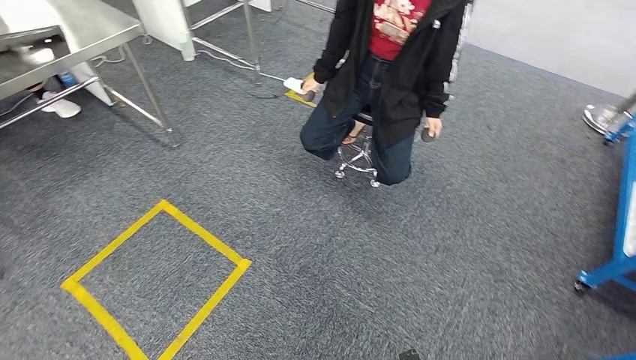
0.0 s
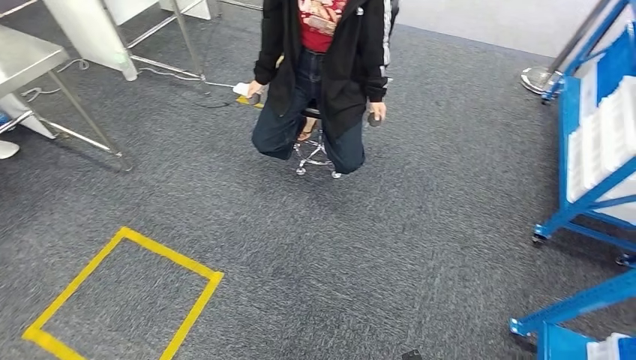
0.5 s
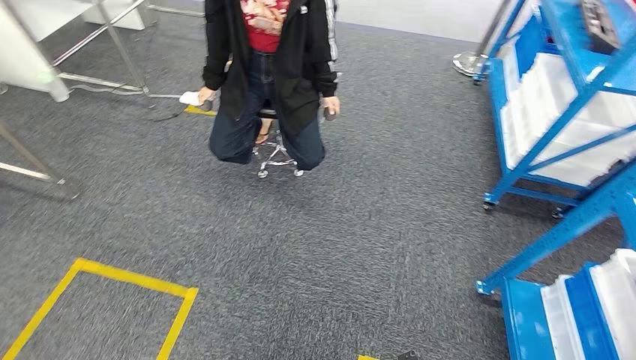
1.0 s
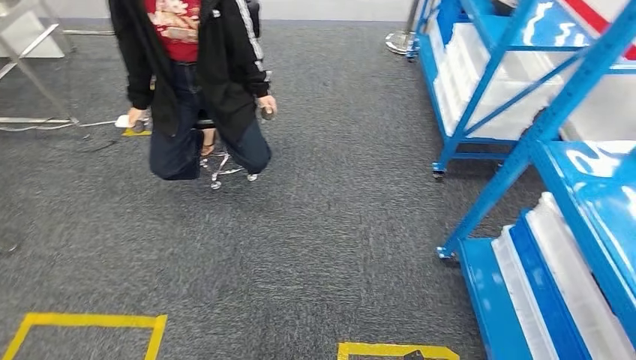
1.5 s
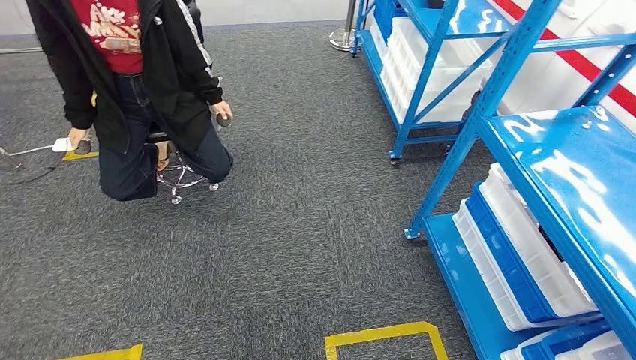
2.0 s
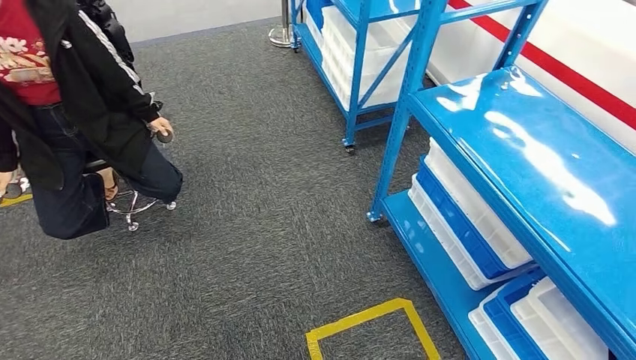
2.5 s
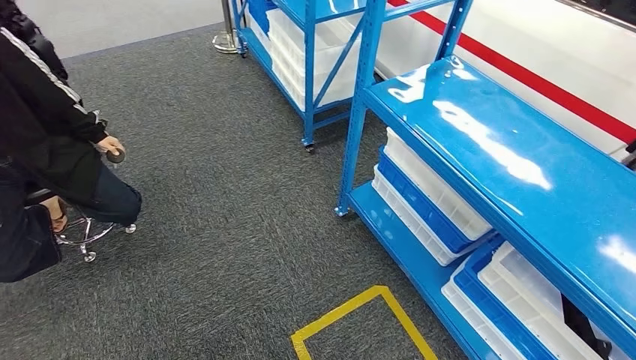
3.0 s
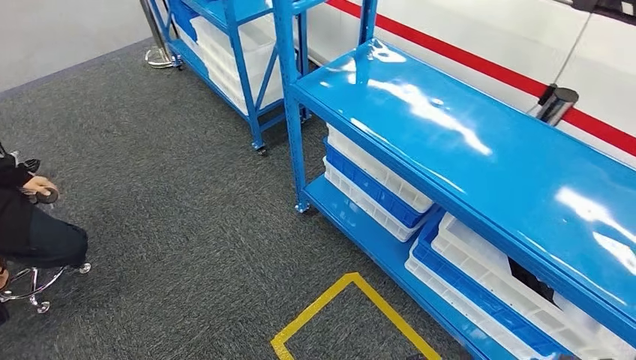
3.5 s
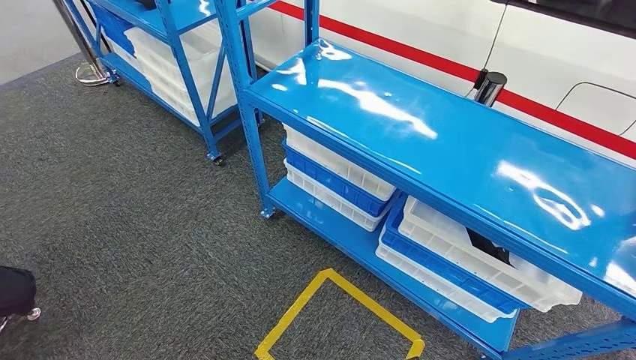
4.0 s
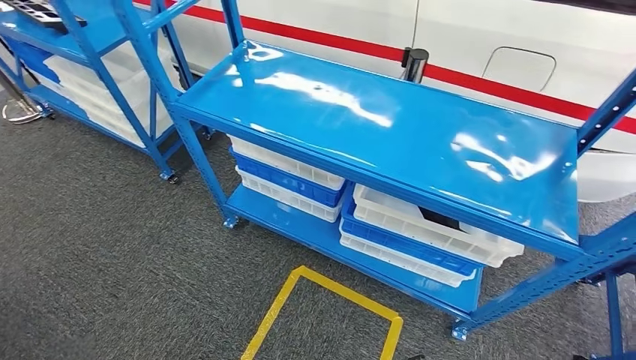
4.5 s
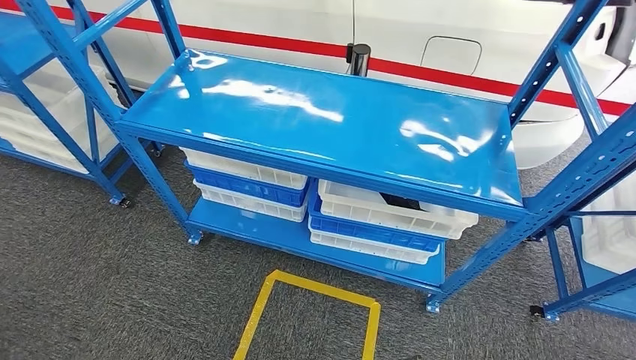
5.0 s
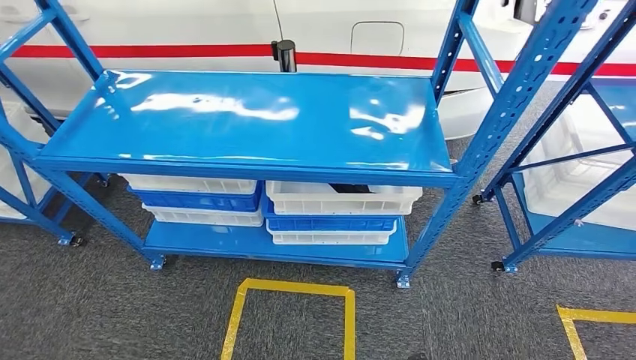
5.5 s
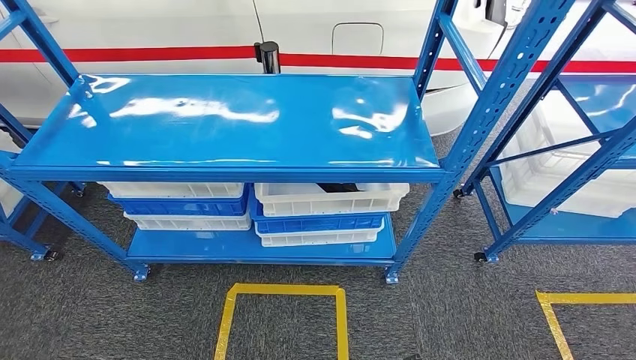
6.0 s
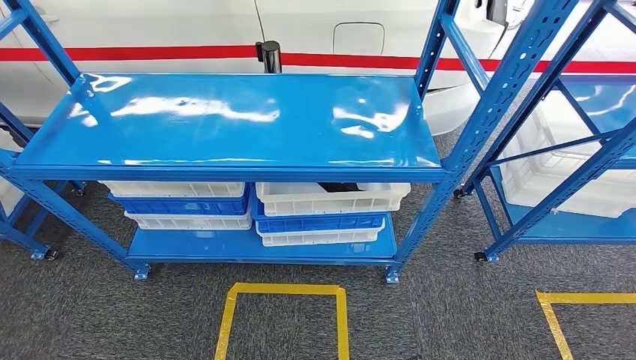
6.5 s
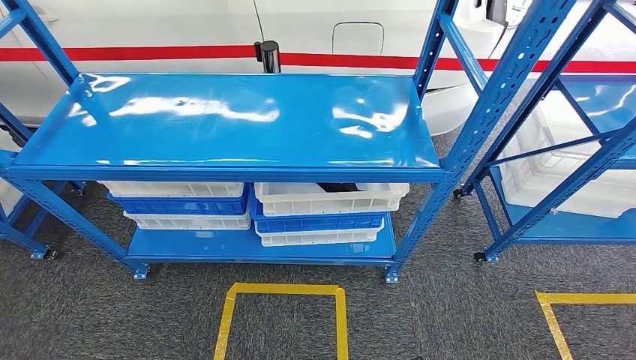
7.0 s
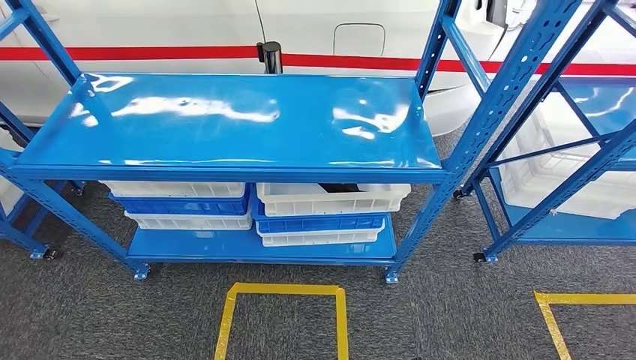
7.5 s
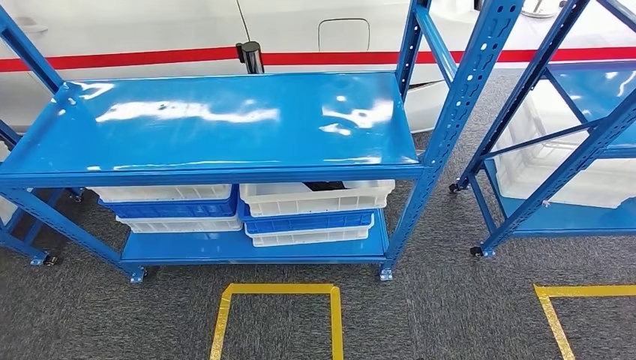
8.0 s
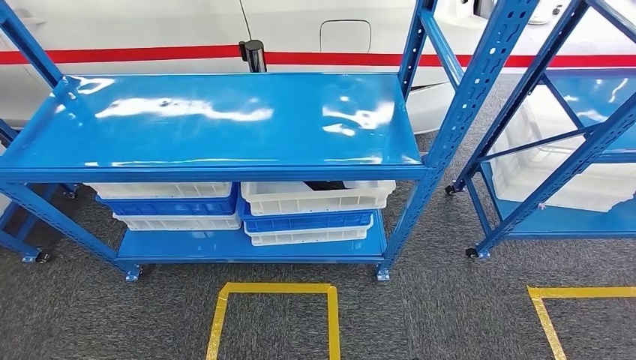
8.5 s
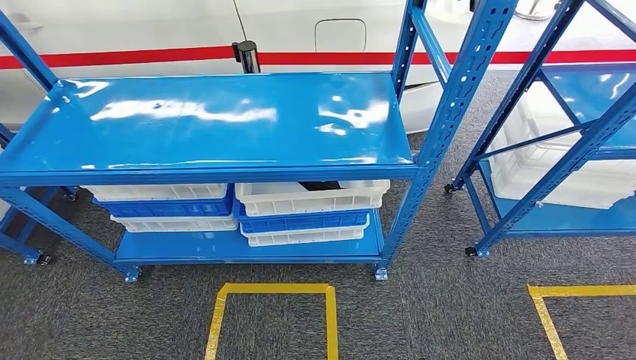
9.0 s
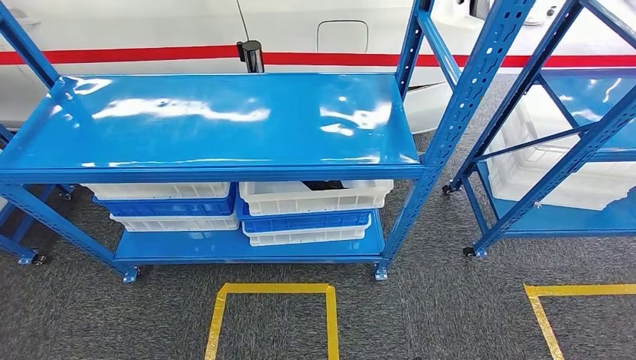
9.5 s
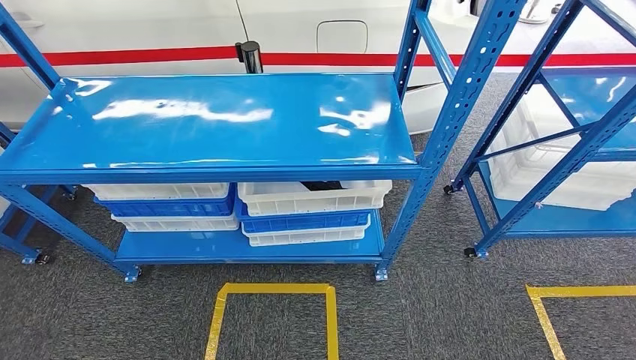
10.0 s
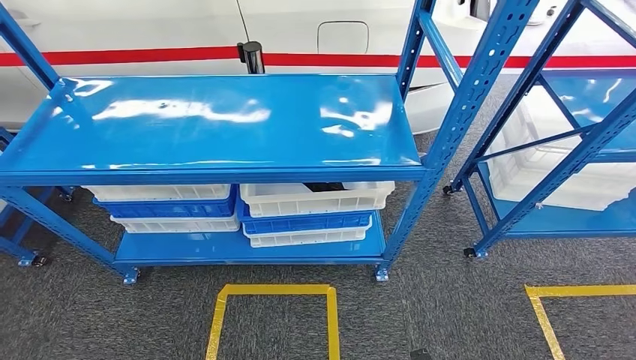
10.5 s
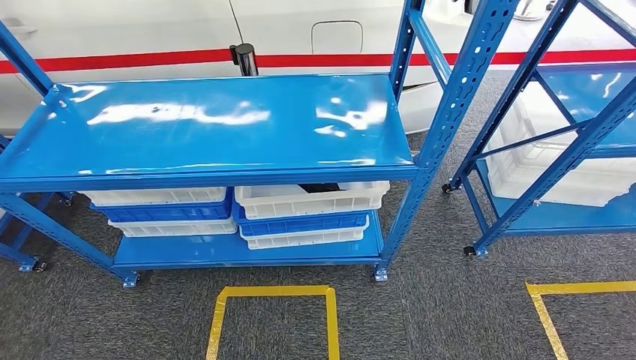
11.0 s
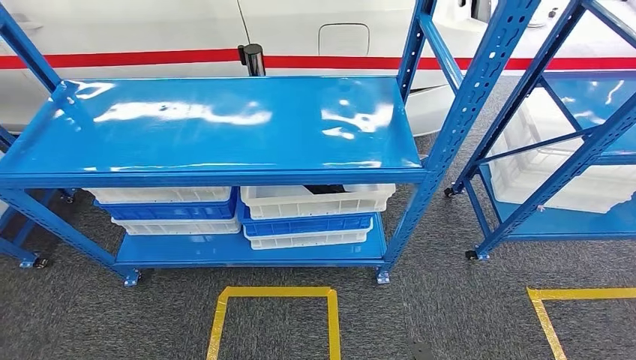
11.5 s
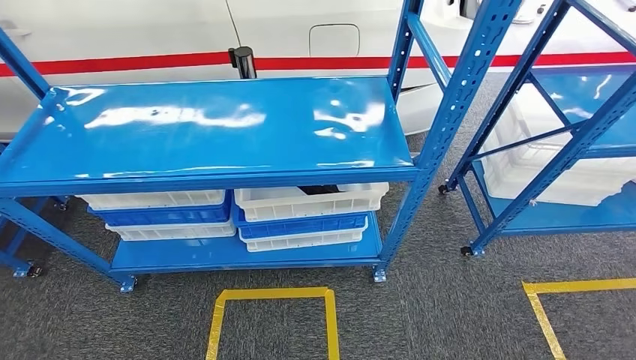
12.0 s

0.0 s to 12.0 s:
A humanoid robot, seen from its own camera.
8.0 to 10.0 s: Both hands stay about where they are.

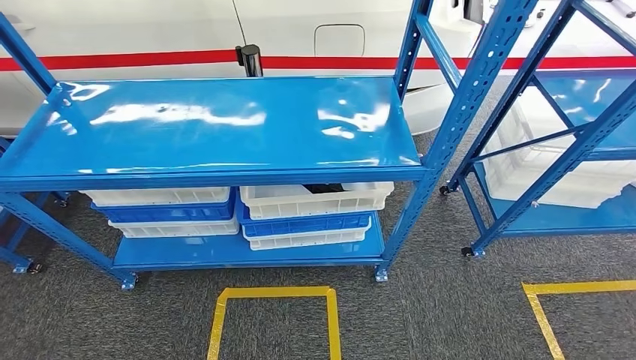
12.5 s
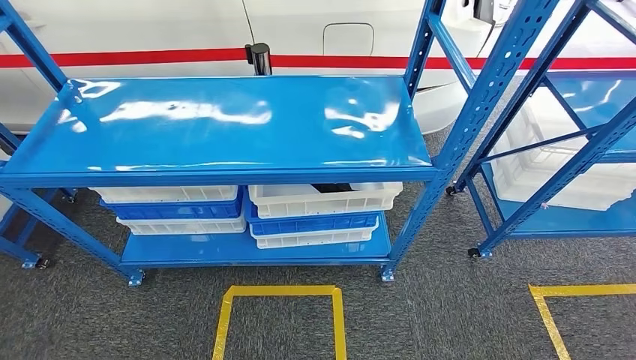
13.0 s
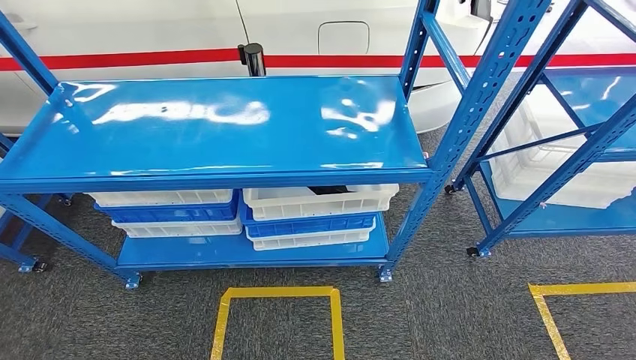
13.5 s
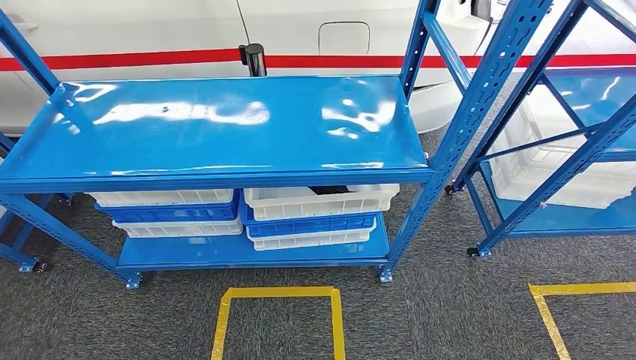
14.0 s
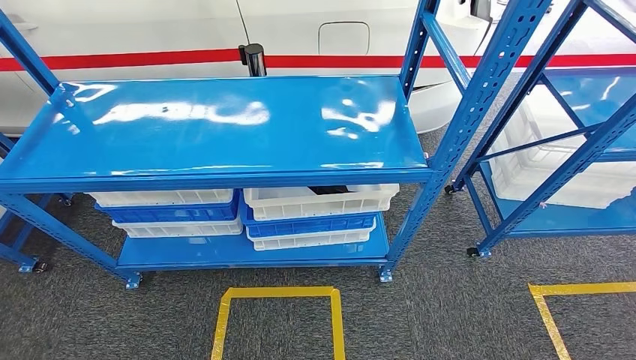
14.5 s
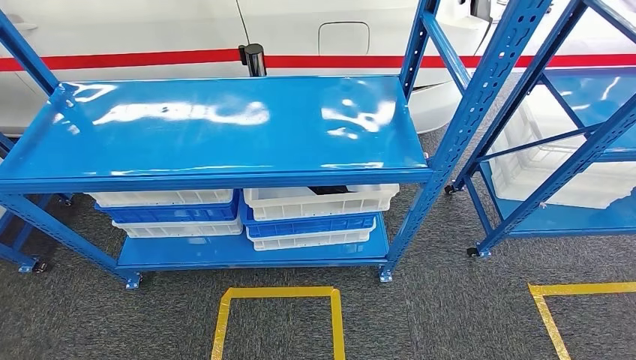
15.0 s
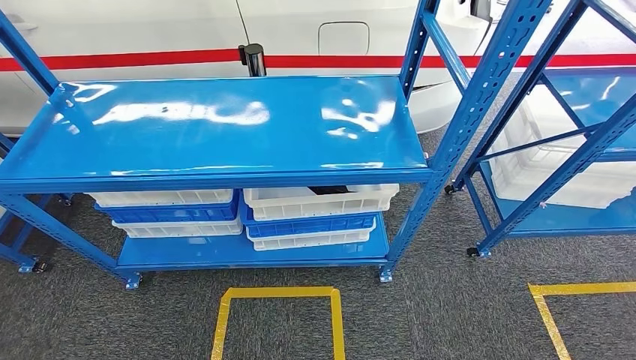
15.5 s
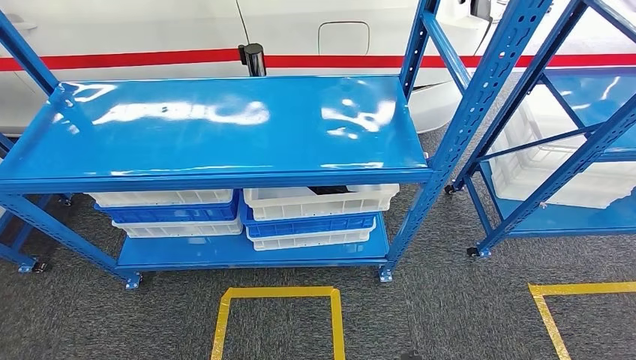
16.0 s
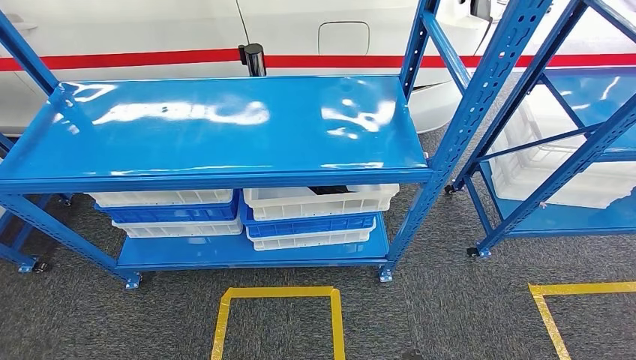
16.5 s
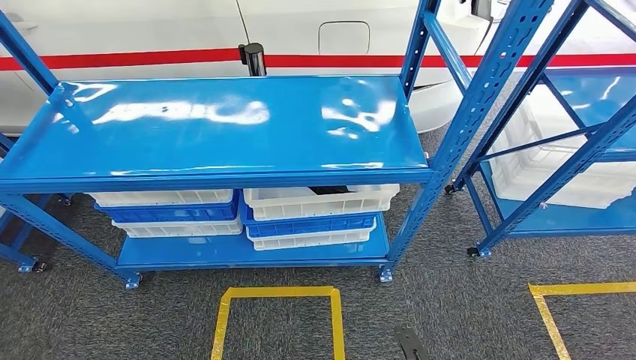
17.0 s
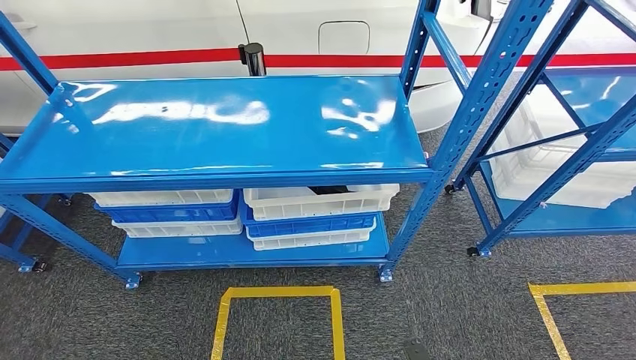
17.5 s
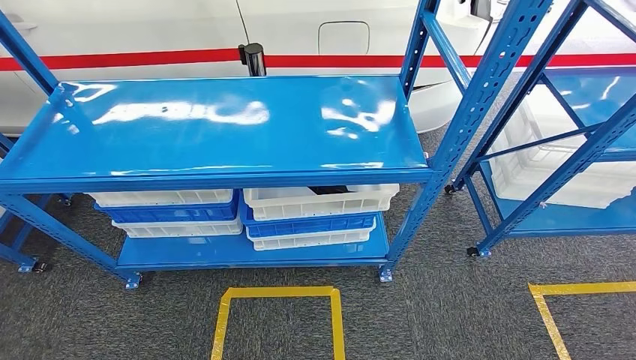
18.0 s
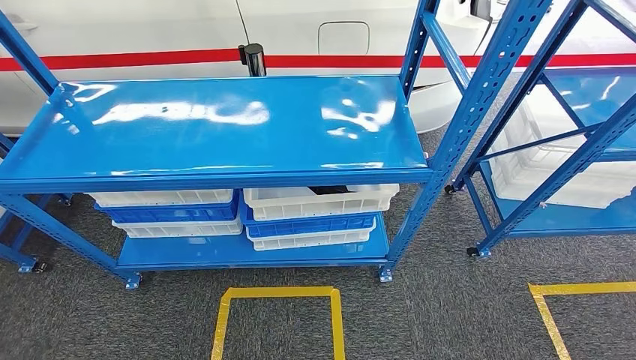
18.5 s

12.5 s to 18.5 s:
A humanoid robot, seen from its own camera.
Step, 12.5 to 18.5 s: Move to the initial position of the shelf.
